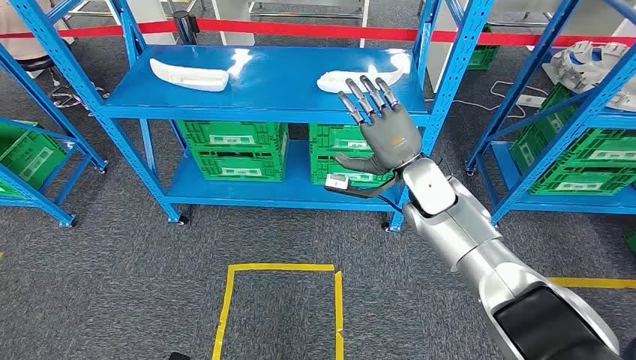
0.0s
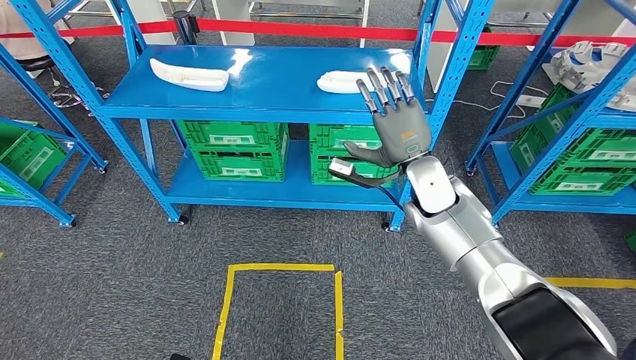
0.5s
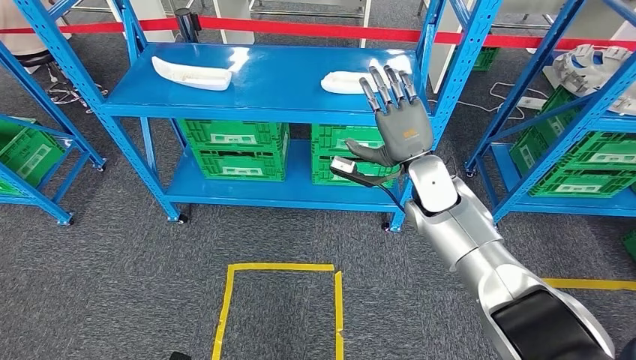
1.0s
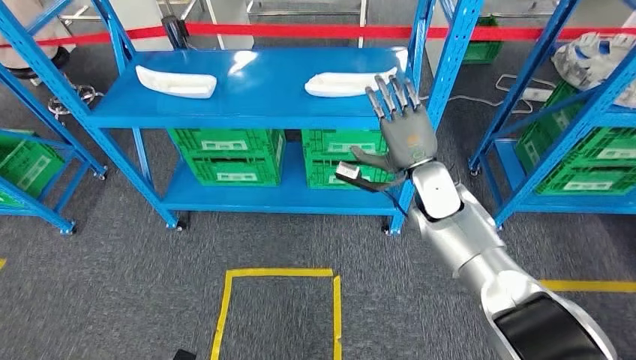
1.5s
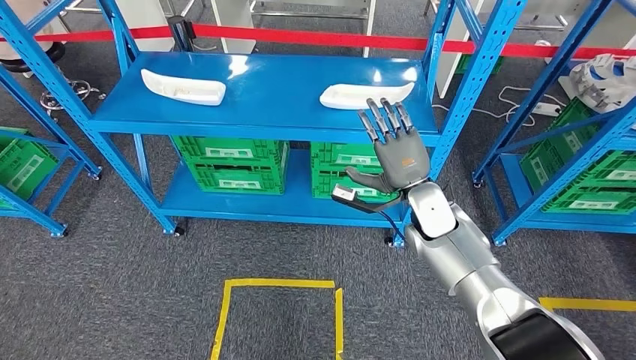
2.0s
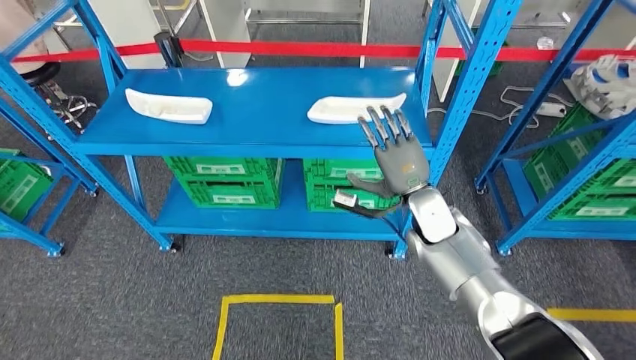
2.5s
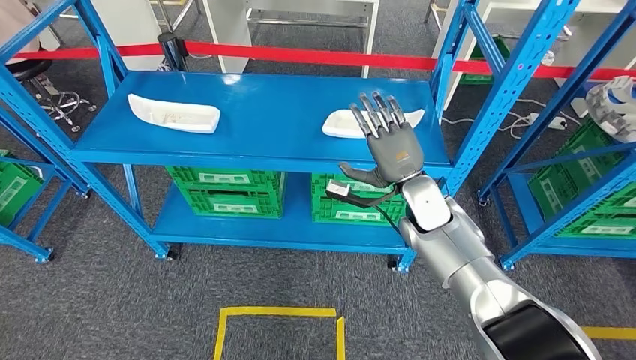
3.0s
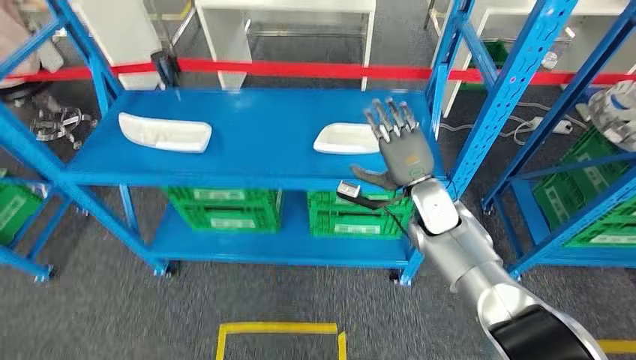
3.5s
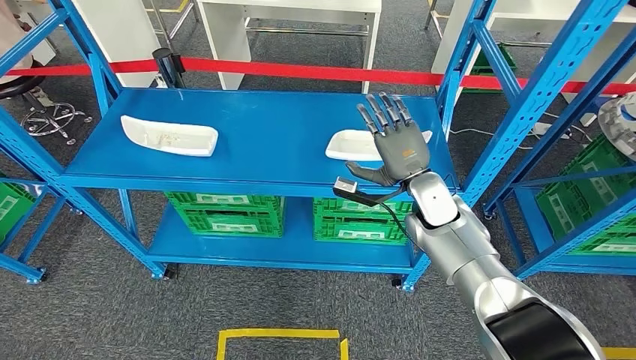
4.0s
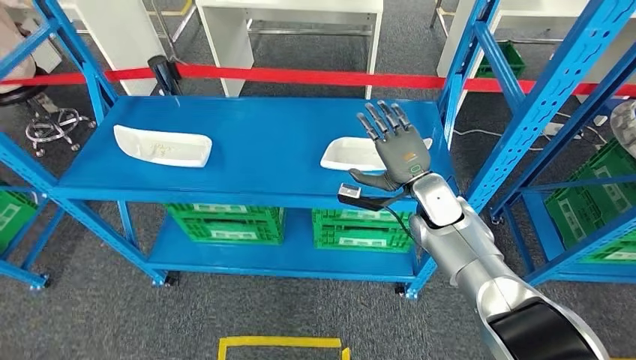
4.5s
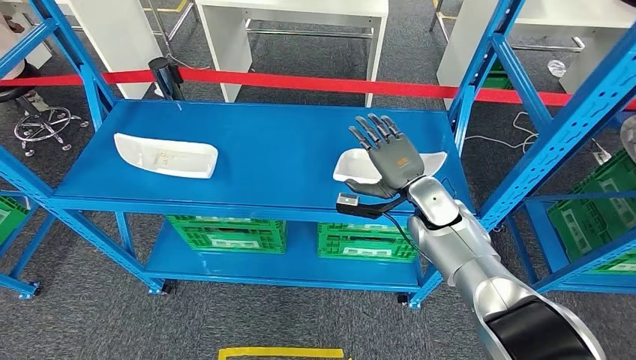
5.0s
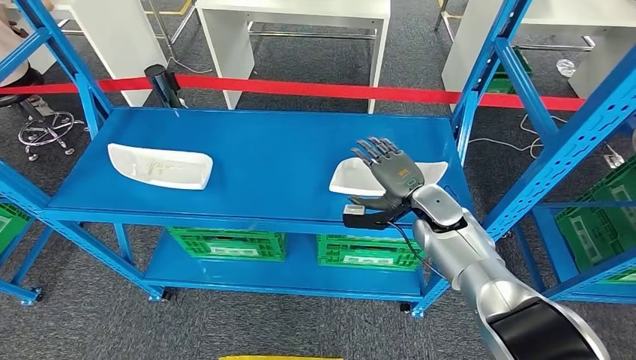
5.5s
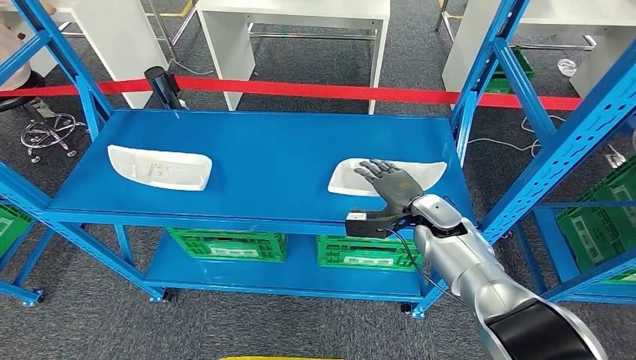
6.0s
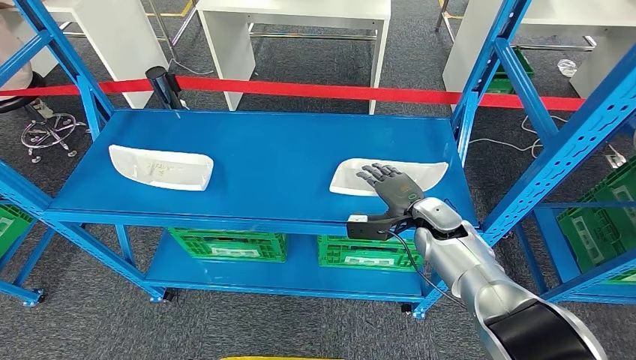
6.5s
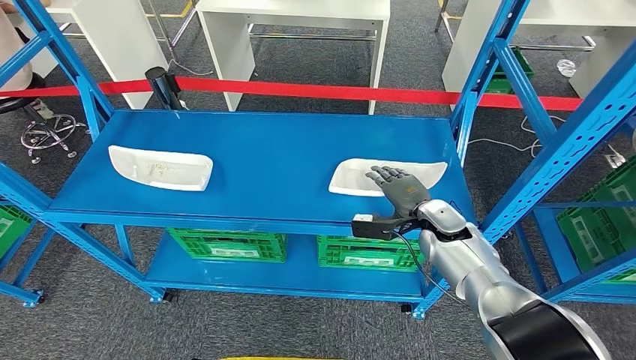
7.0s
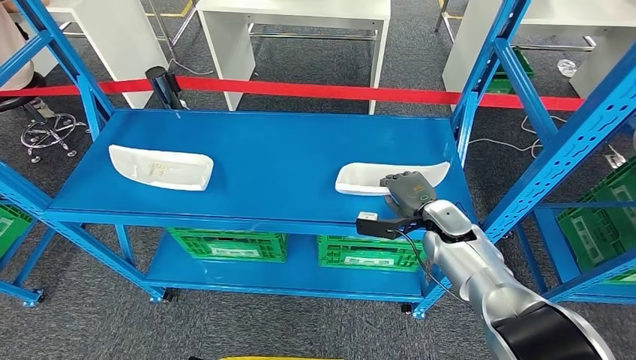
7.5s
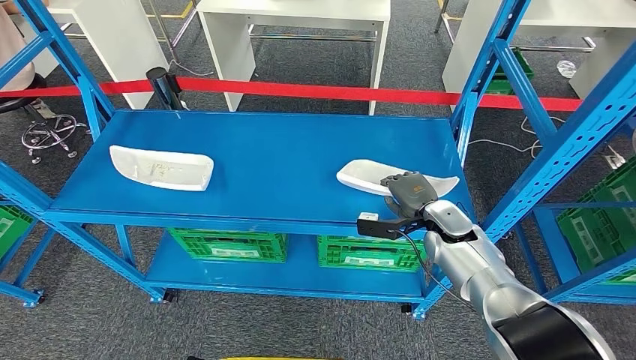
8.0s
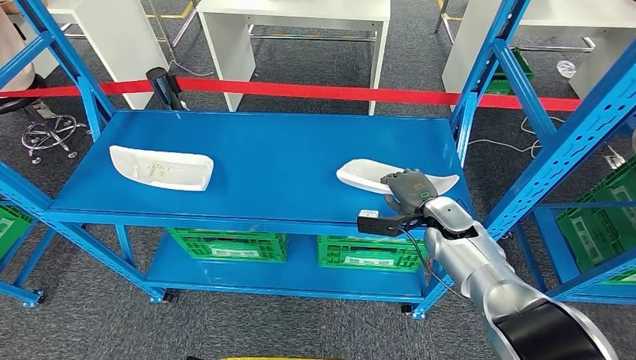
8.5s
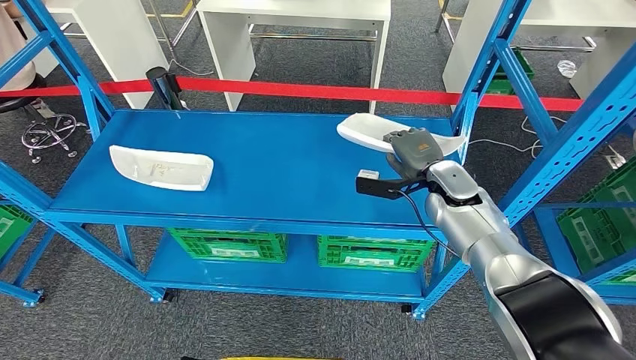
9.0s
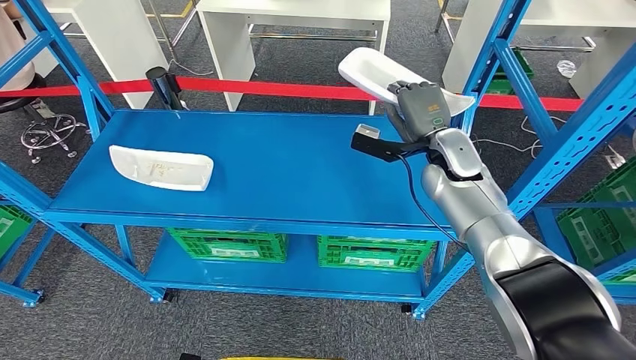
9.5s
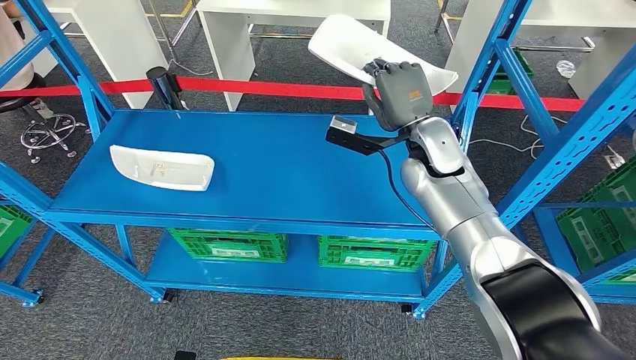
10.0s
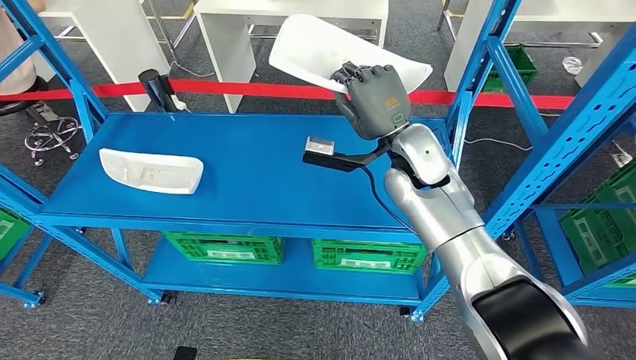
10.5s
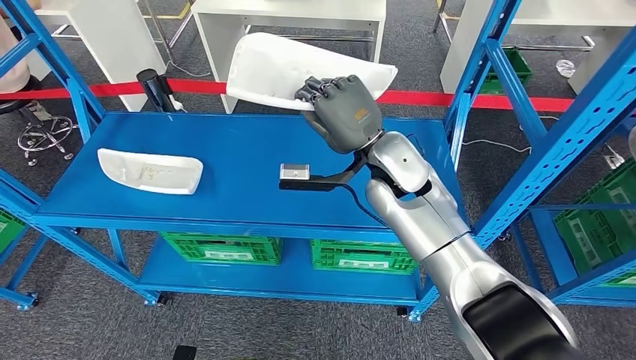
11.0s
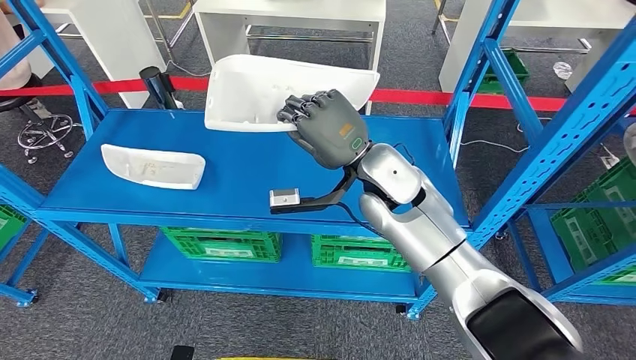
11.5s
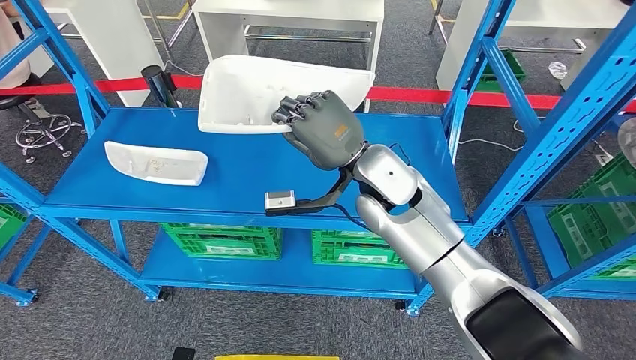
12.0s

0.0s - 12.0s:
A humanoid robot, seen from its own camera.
Step, 0.0s - 10.0s: Pick up the small component from the shelf.
6.0s - 8.0s: The hands move only a little.
8.0s - 10.0s: The right hand heads upward, to the left and forward, covering about 20 cm.

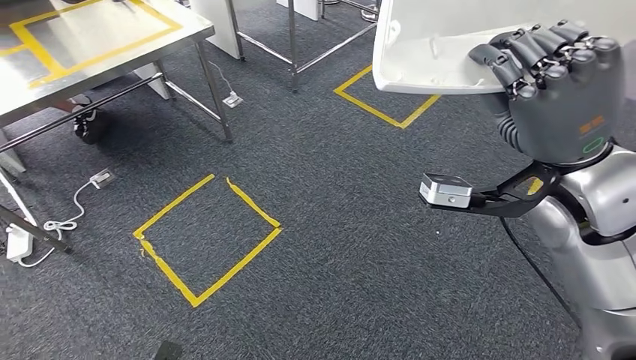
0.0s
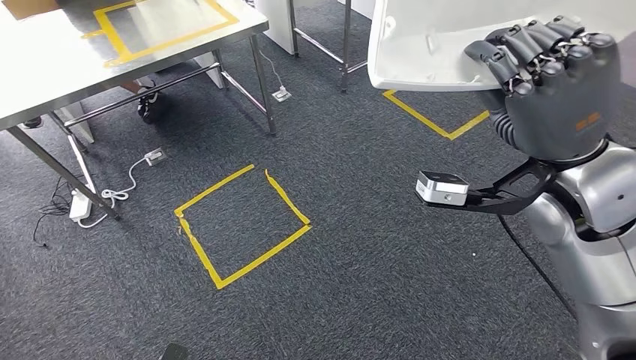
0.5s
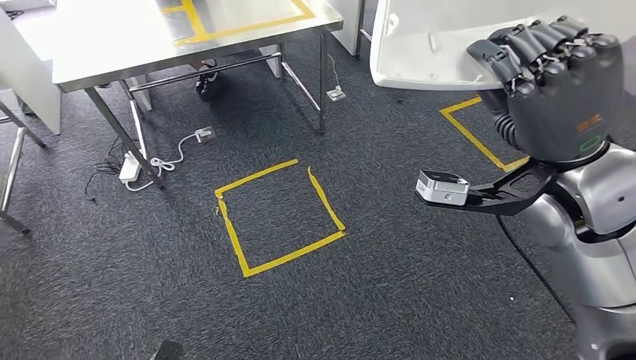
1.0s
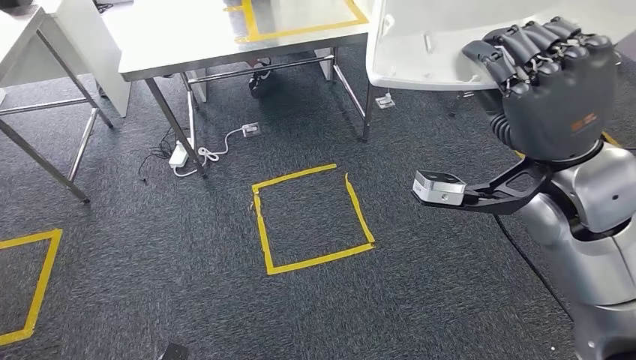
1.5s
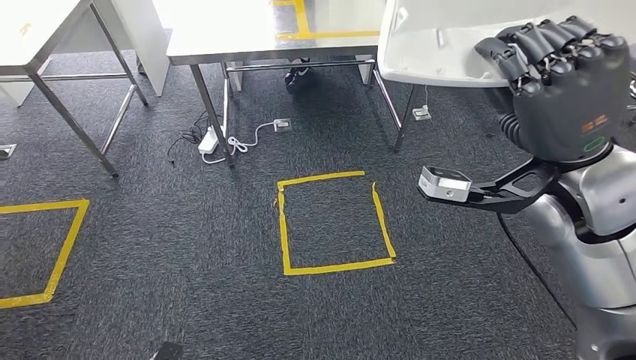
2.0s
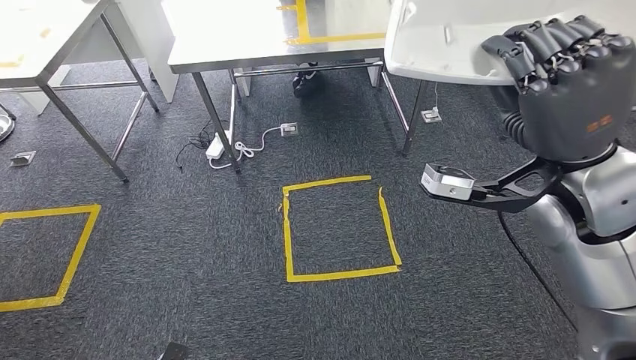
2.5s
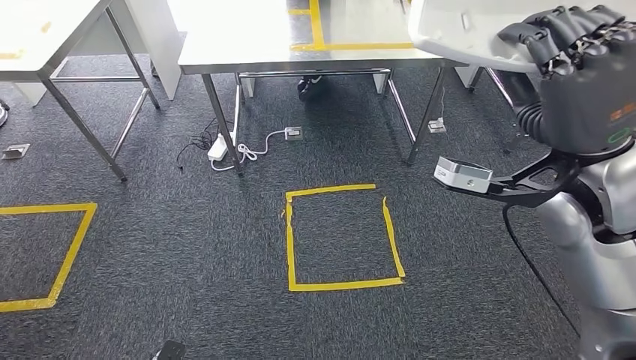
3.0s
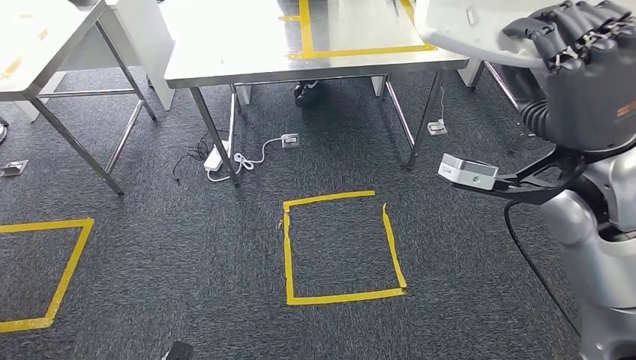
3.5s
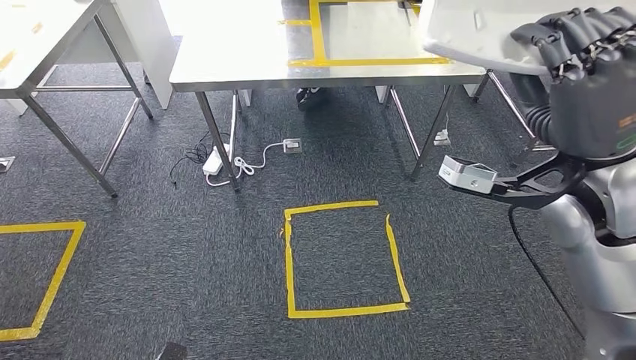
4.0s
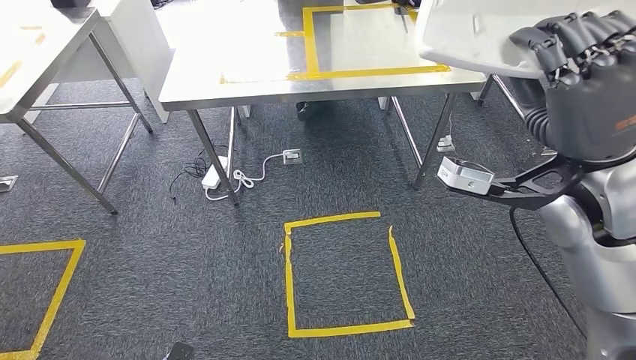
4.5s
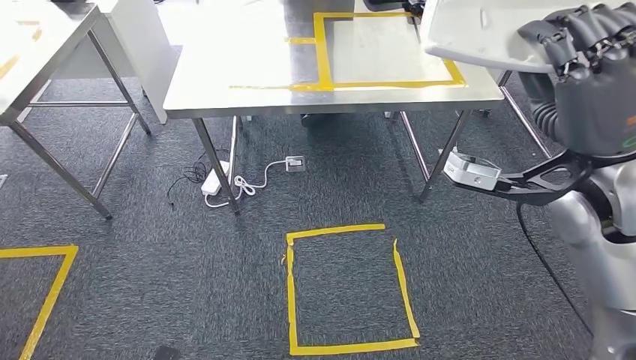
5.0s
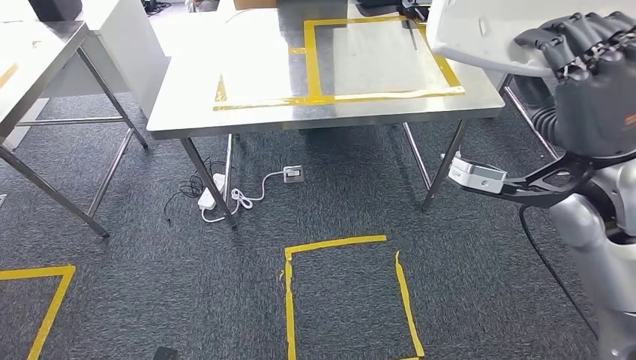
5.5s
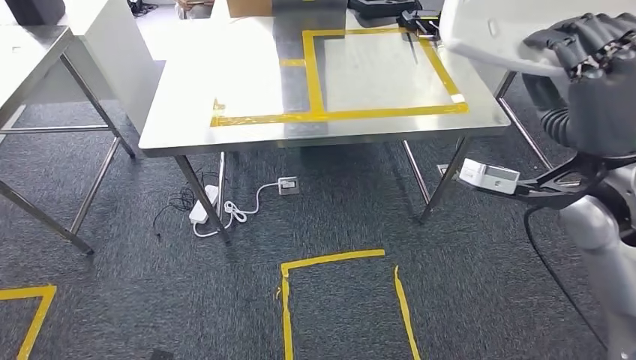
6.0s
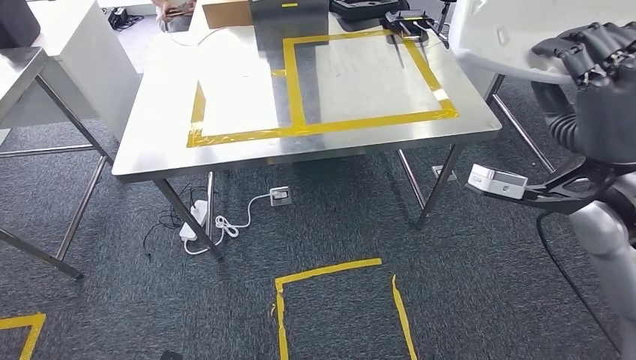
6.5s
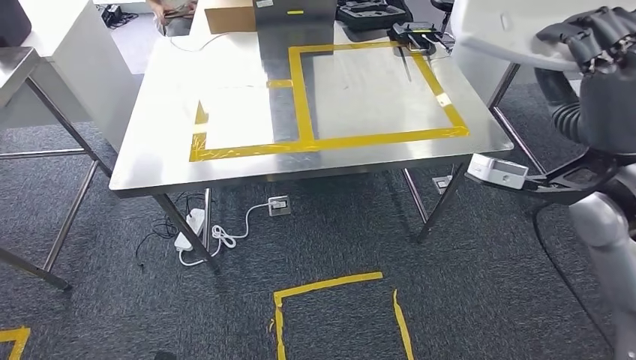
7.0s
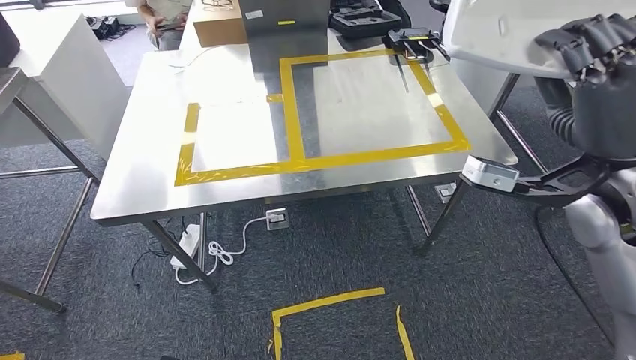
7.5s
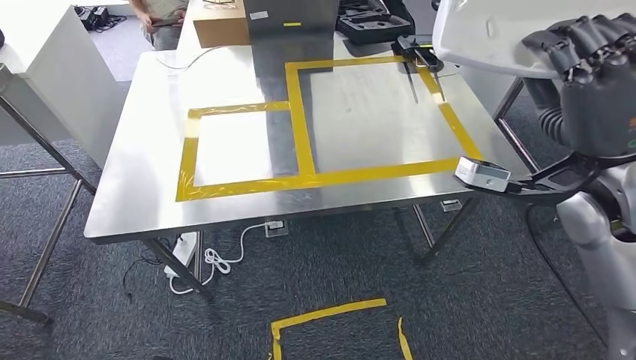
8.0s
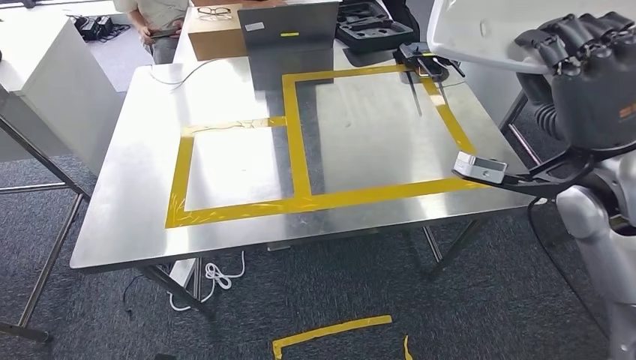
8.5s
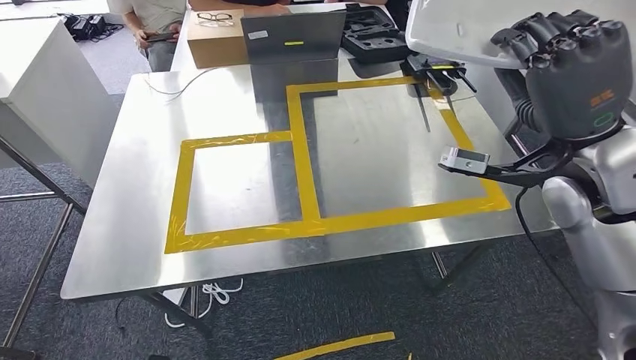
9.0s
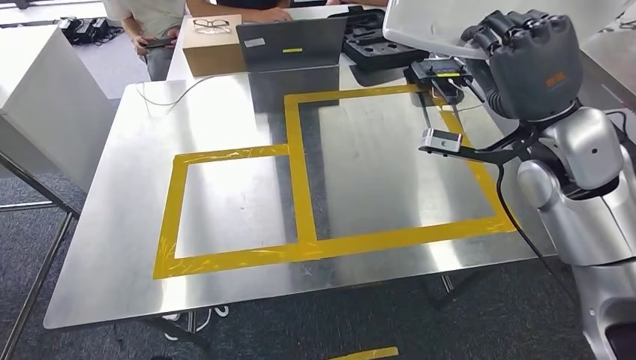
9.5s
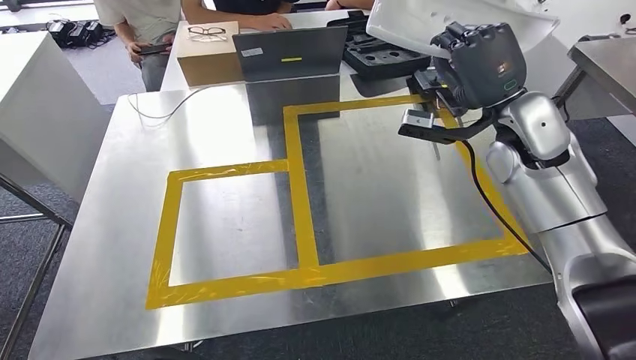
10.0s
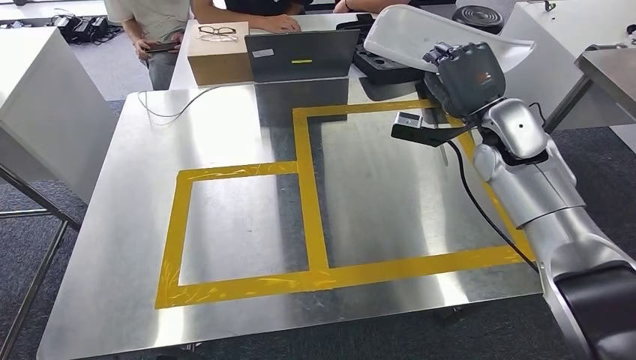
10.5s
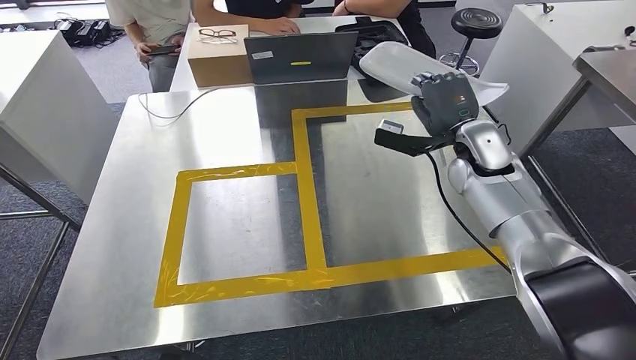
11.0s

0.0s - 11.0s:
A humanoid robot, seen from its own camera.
Step, 0.0s - 3.0s: Move the small component to the workbench.
